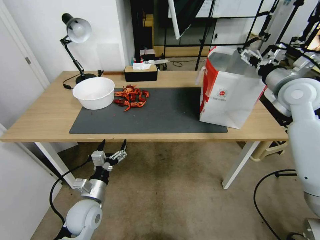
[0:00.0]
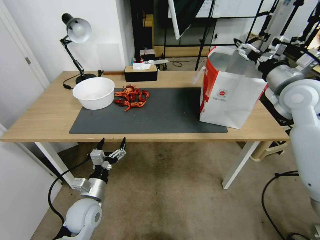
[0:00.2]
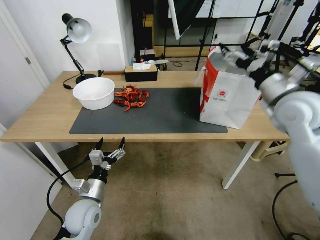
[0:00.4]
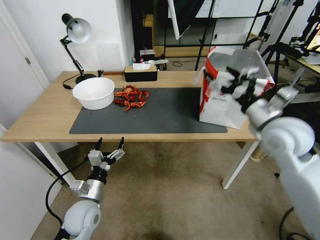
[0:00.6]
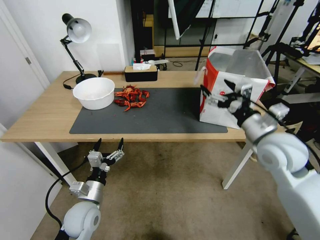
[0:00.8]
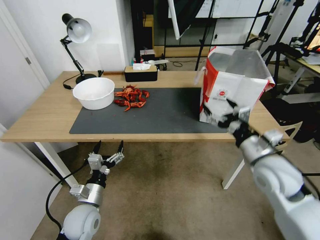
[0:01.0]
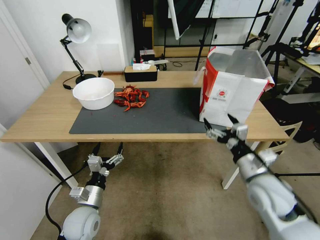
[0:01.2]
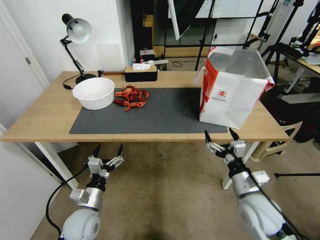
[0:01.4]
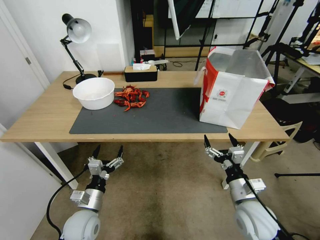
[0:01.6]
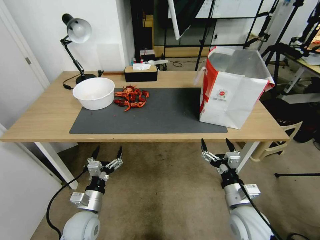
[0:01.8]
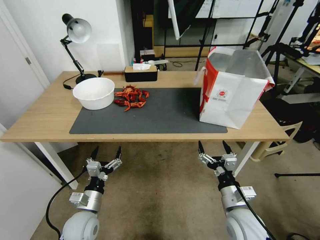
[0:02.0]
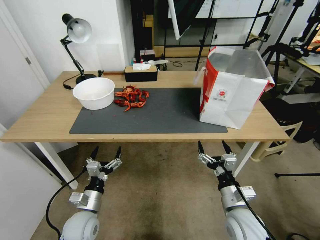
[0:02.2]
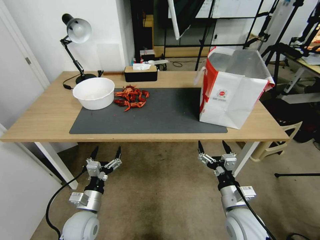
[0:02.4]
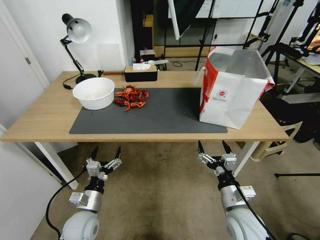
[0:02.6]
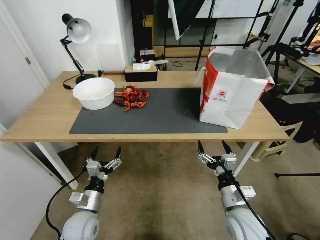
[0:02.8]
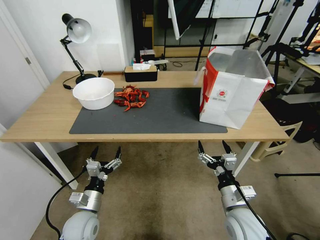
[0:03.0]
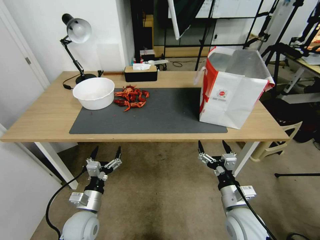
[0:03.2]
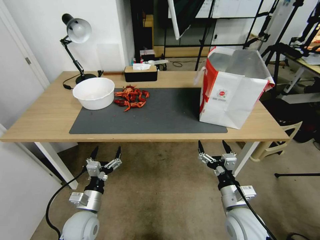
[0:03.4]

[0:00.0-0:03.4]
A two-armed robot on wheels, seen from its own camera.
Task of the whole recording: Close the takeout container lid, then place the container into the takeout bag.
0:00.0 to 0:01.6: The right gripper travels downward, backward and to the left by roughly 35 cm.
0:01.6 to 0:03.4: There are only small adjustments of the grippers.

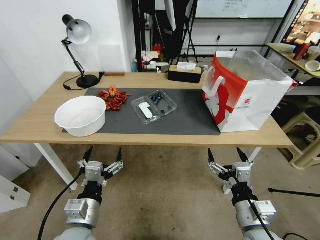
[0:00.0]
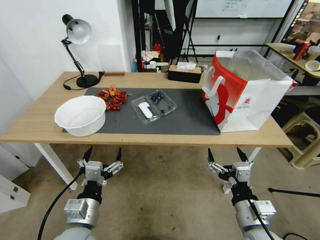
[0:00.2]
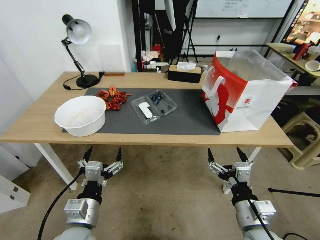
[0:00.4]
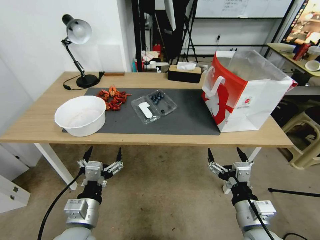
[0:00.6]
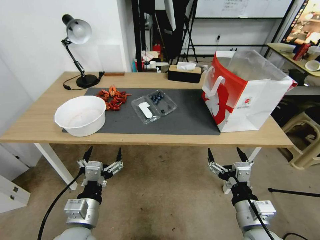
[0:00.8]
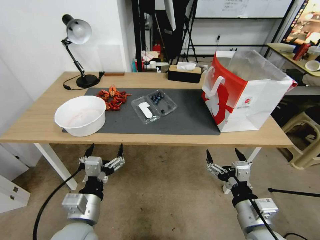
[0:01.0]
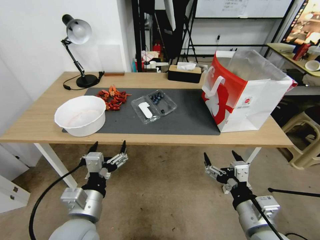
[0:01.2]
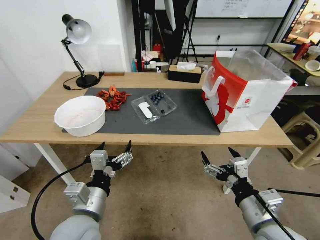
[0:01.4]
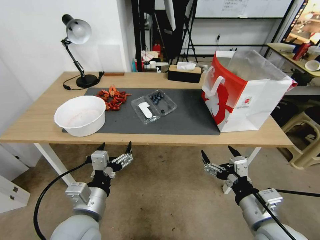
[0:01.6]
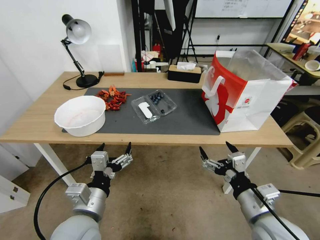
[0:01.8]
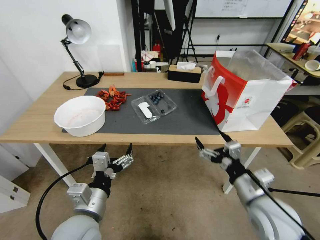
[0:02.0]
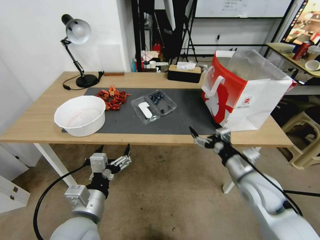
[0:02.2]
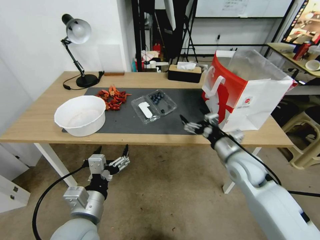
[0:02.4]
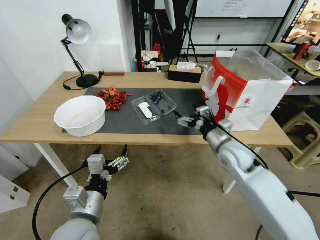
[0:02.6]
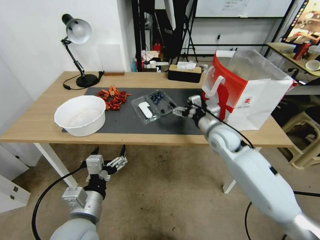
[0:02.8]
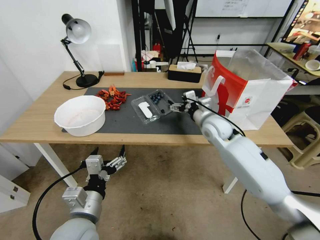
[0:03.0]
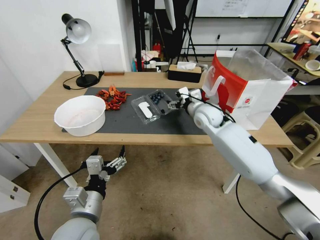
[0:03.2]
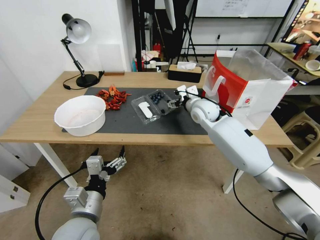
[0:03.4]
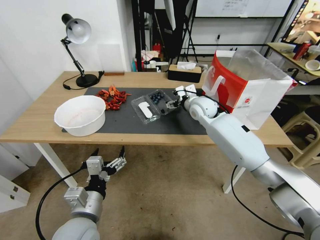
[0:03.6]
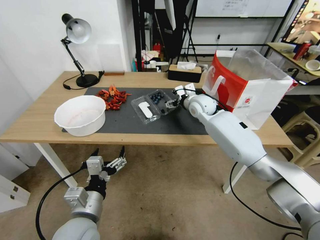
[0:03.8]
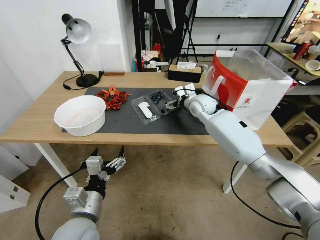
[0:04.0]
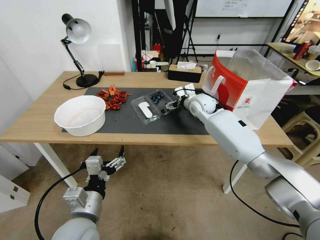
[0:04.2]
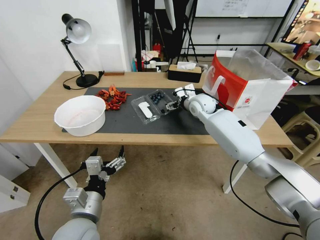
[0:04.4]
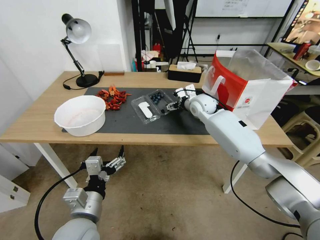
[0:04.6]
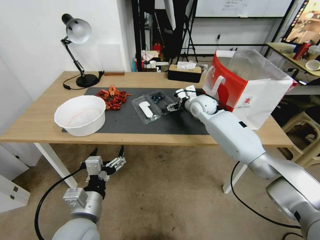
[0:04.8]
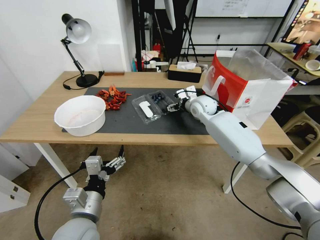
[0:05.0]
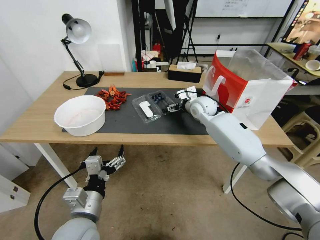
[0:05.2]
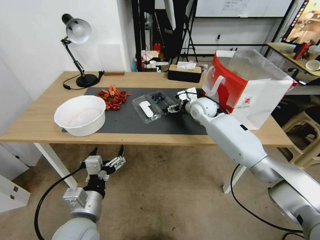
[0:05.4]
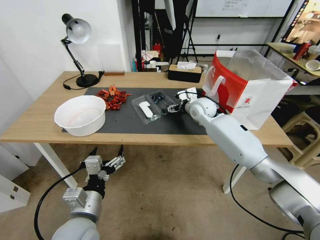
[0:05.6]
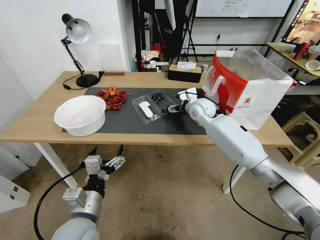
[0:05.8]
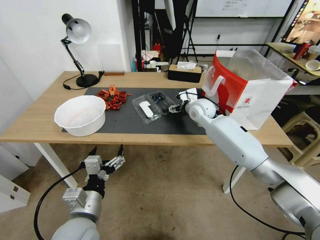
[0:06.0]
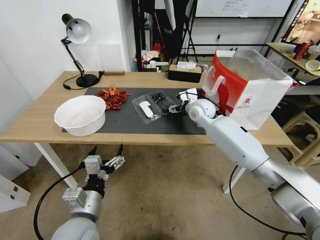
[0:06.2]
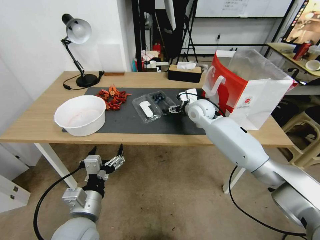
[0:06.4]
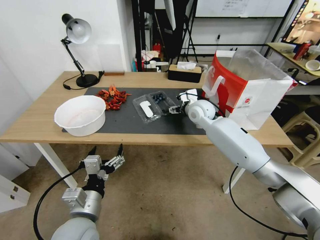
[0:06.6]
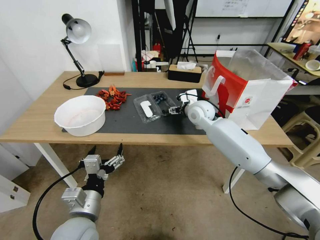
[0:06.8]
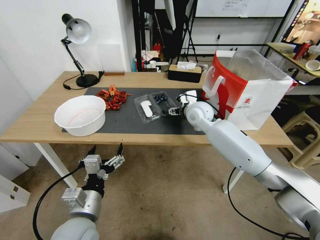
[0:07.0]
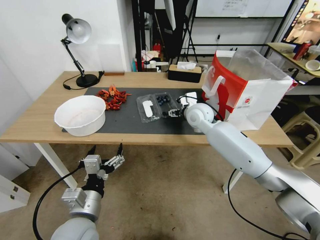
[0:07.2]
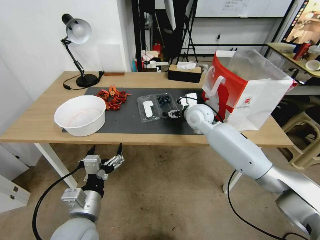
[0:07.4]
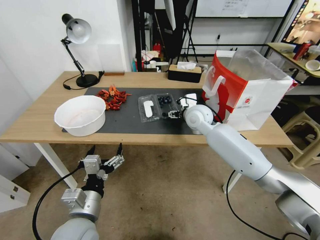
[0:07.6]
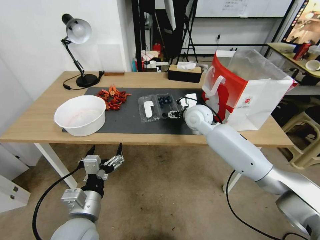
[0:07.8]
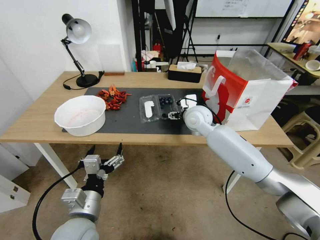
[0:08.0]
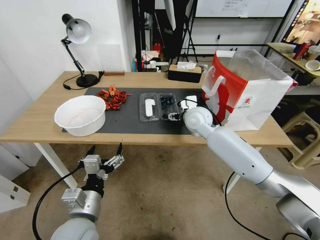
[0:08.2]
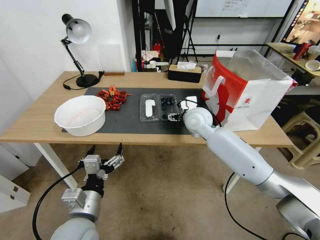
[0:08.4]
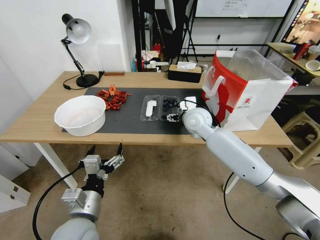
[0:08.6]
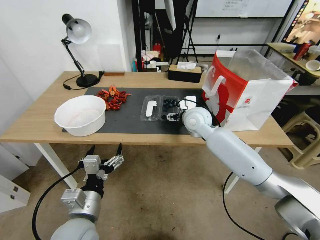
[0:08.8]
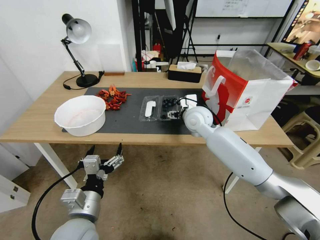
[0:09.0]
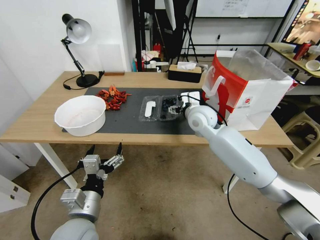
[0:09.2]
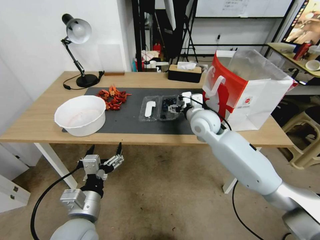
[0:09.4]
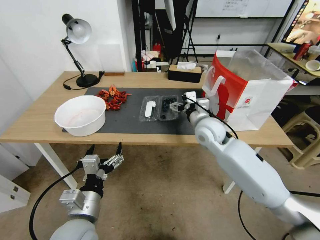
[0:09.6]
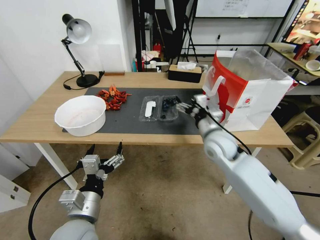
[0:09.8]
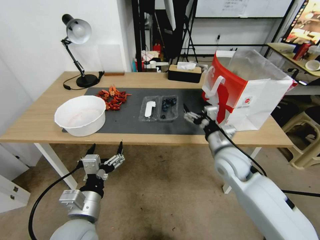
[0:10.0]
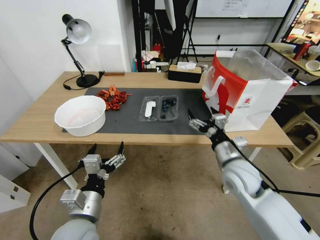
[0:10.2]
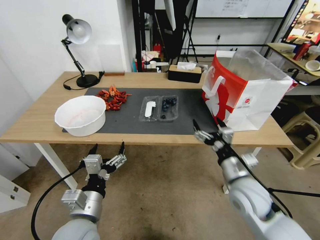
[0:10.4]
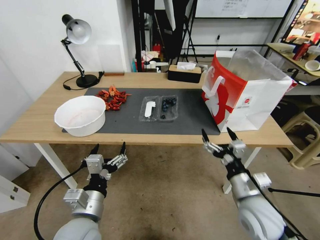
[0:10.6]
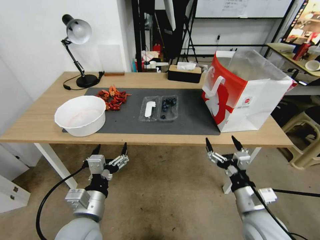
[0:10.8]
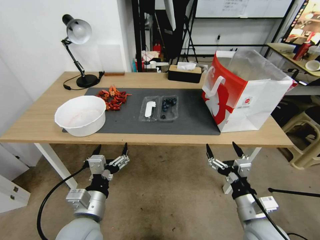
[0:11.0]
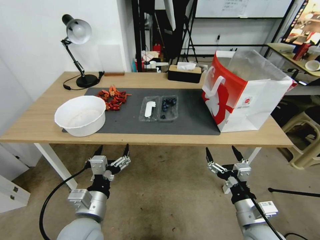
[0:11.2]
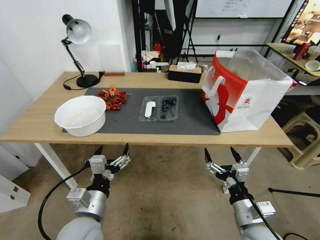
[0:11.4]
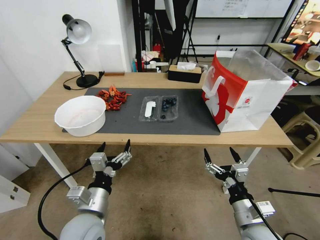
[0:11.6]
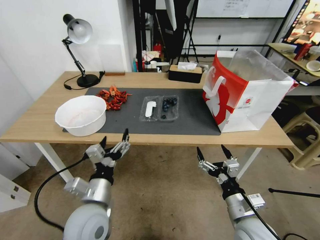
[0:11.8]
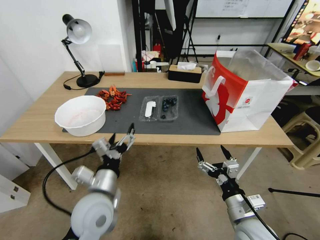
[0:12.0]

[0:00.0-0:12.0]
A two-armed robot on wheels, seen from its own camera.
Task of the whole recording: Close the takeout container lid, then place the container into the takeout bag.
0:01.6 to 0:03.0: The right gripper travels forward by some 30 cm.
0:03.0 to 0:04.4: The right gripper shifts approximately 10 cm forward.
0:04.4 to 0:06.0: The grippers make only small movements.
0:06.0 to 0:07.6: The grippers stay close to where they were, moving slightly.
0:07.6 to 0:09.0: The grippers move only a little.
0:09.0 to 0:10.4: The right gripper shifts some 25 cm backward and to the right.
0:10.4 to 0:12.0: The left gripper travels forward by some 5 cm, while the right gripper moves backward and downward, about 10 cm.

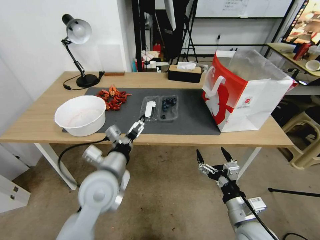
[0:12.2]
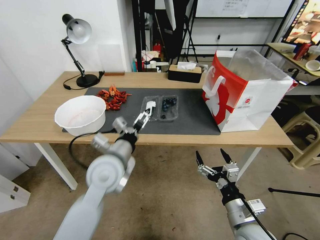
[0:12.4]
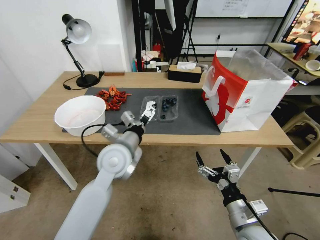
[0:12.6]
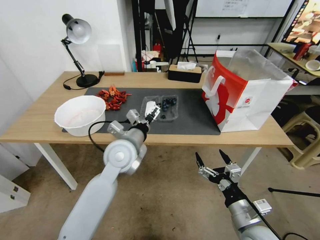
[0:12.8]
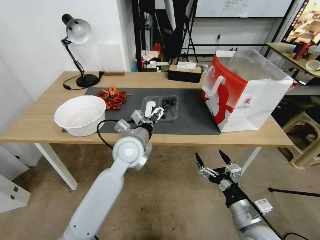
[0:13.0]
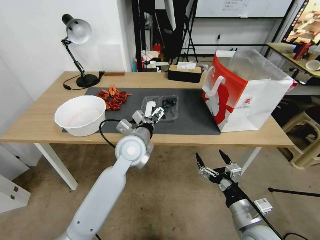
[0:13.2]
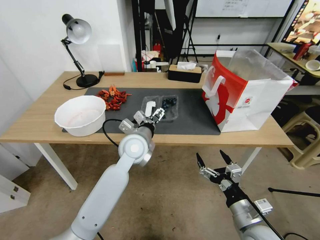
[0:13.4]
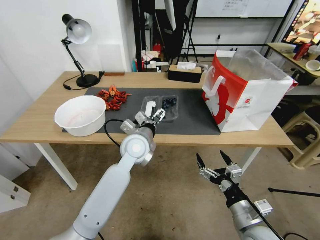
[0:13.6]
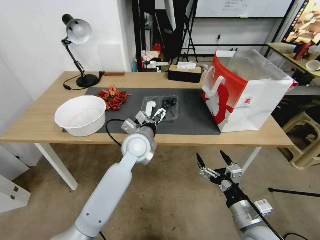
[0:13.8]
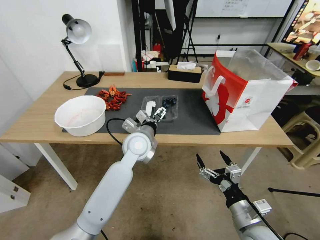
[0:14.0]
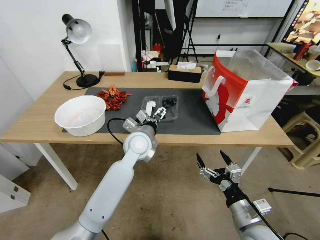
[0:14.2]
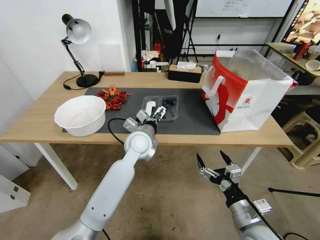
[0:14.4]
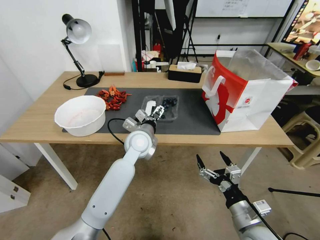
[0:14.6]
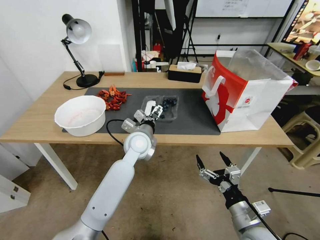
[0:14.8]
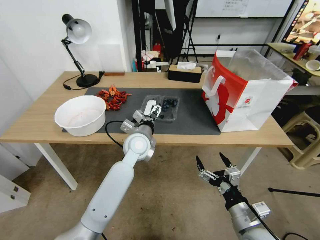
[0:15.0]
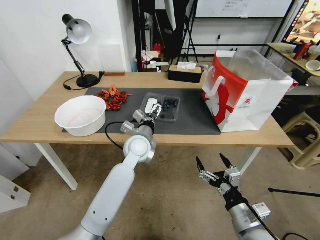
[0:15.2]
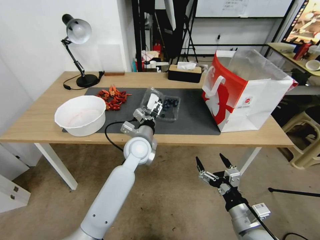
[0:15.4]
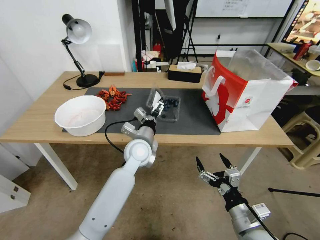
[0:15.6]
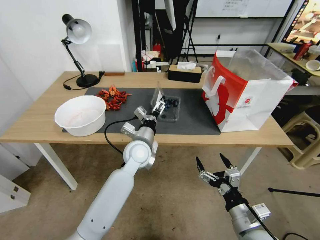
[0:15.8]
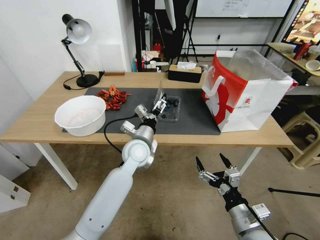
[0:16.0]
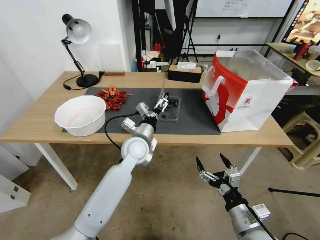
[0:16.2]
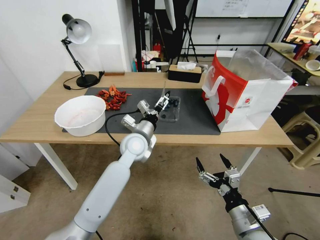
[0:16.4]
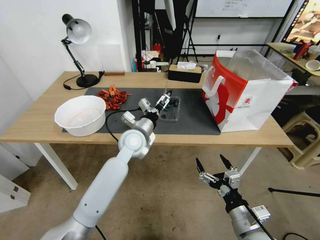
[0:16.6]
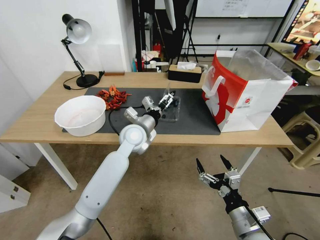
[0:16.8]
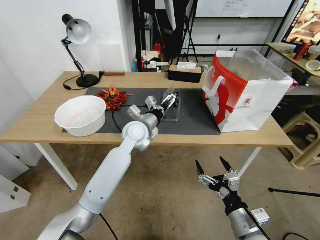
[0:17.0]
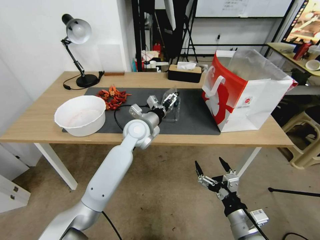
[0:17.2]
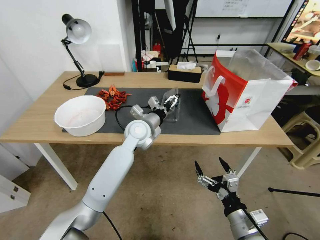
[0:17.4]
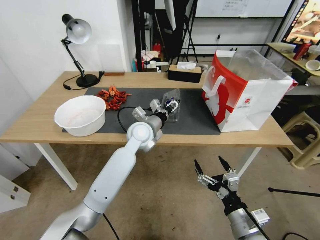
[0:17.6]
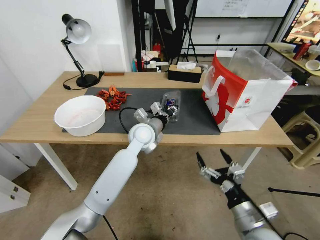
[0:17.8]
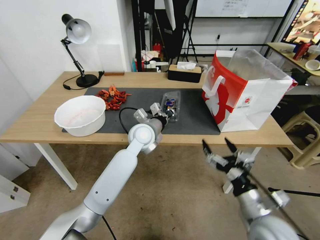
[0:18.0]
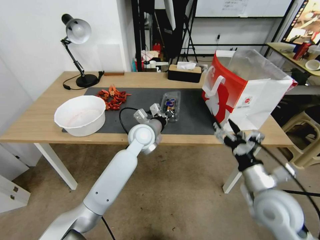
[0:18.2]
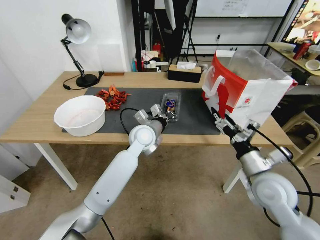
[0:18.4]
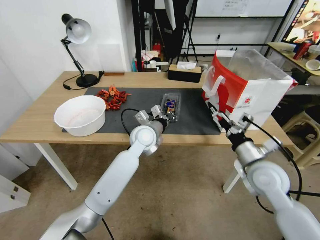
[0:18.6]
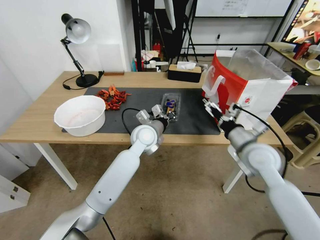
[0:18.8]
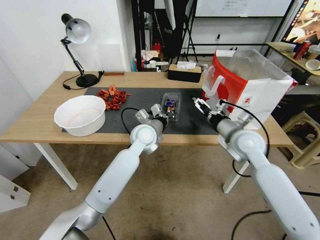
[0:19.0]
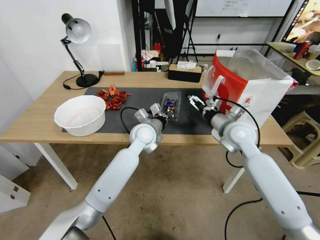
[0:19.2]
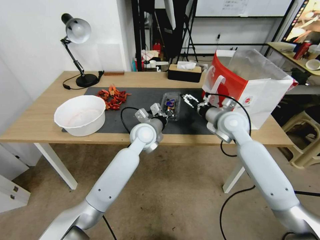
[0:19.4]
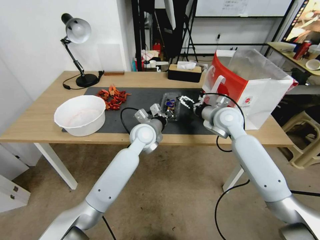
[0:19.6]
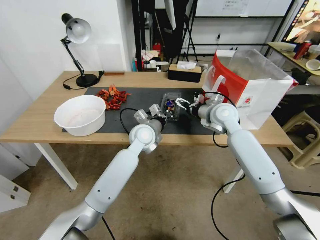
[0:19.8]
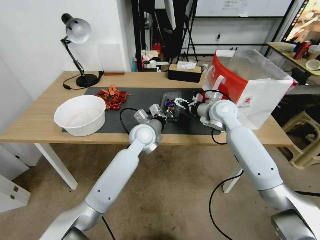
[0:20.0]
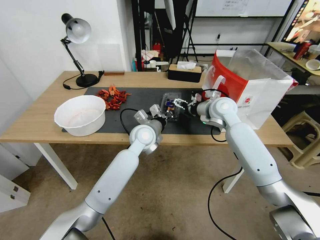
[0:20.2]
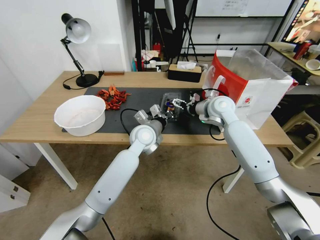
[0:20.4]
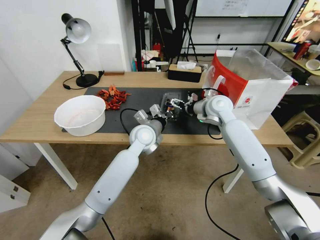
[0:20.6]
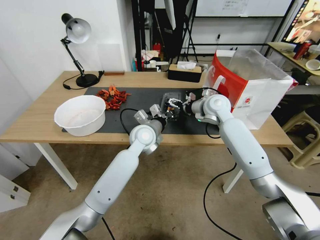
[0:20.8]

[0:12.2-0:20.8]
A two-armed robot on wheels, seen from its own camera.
Task of the whole recording: Close the takeout container lid, then place the container into the takeout bag.
0:12.2 to 0:13.6: The left gripper moves forward and to the right, about 15 cm.
0:13.6 to 0:15.0: The grippers stay close to where they were, moving slightly.
0:16.6 to 0:18.0: The left gripper closes. The right gripper changes place by approximately 5 cm.
0:18.0 to 0:19.4: The right gripper heads forward, covering some 30 cm.
0:19.4 to 0:20.8: The right gripper travels forward by roughly 10 cm.
